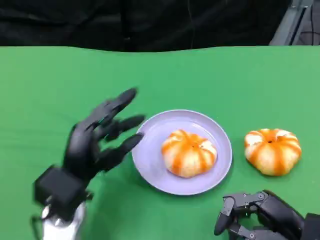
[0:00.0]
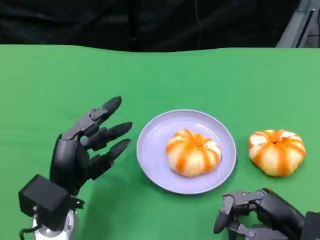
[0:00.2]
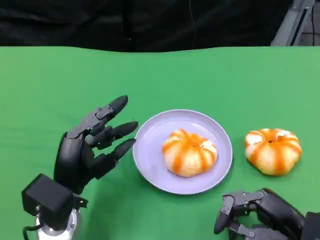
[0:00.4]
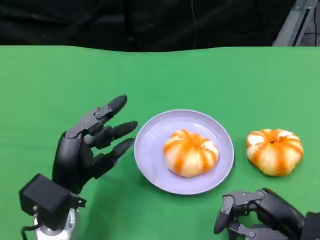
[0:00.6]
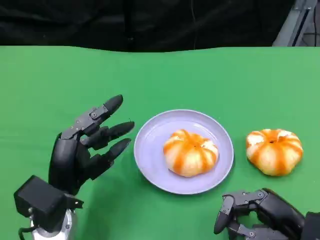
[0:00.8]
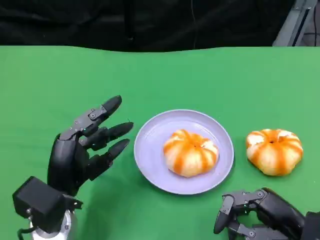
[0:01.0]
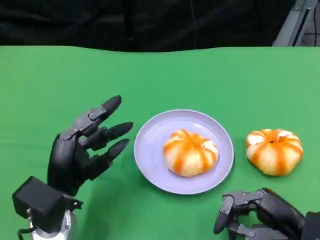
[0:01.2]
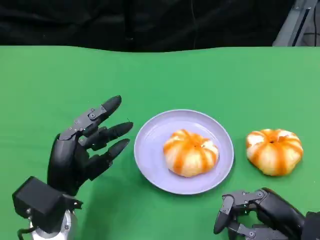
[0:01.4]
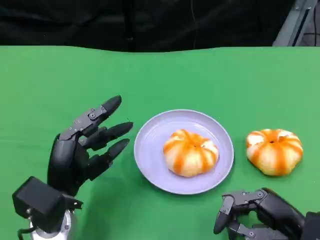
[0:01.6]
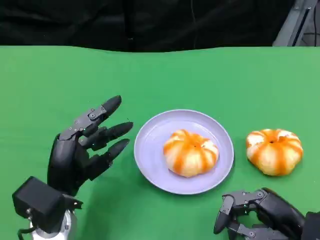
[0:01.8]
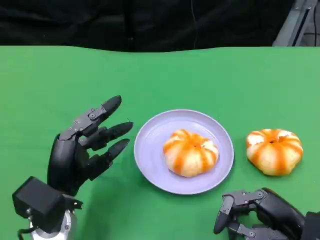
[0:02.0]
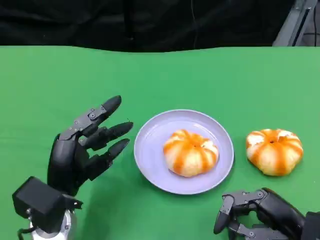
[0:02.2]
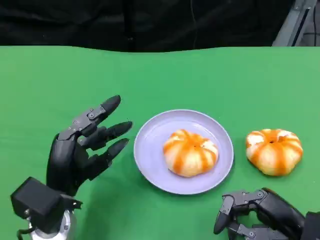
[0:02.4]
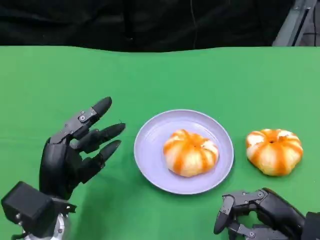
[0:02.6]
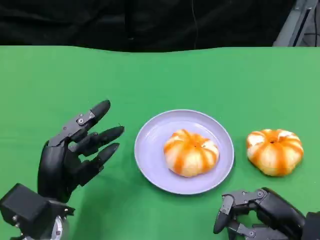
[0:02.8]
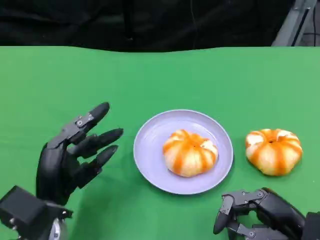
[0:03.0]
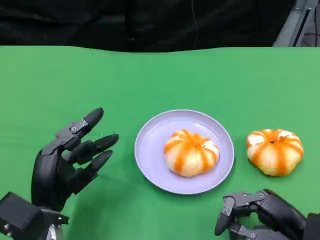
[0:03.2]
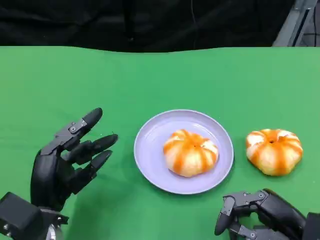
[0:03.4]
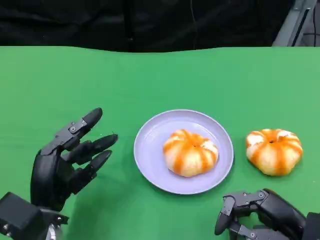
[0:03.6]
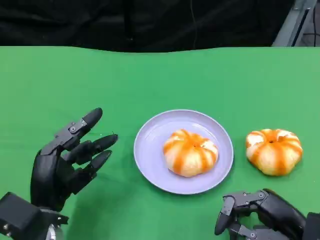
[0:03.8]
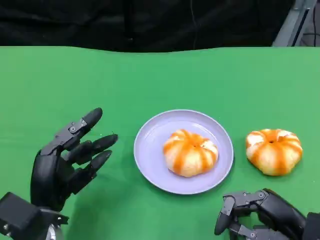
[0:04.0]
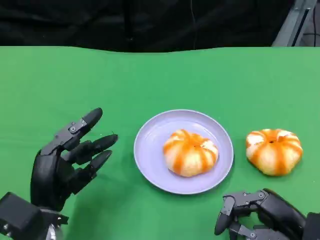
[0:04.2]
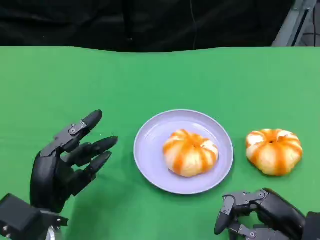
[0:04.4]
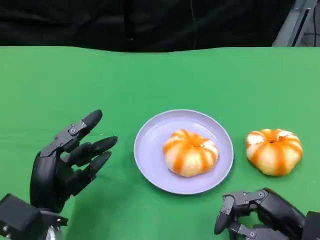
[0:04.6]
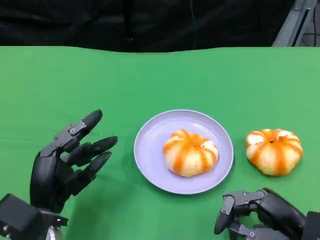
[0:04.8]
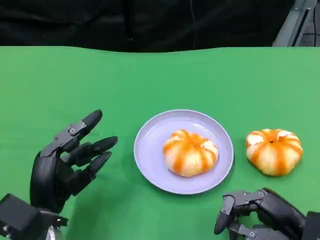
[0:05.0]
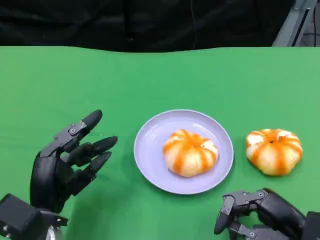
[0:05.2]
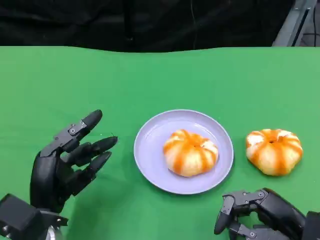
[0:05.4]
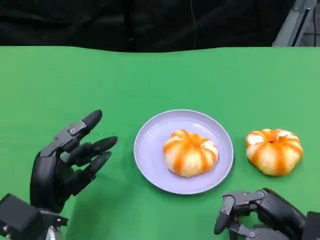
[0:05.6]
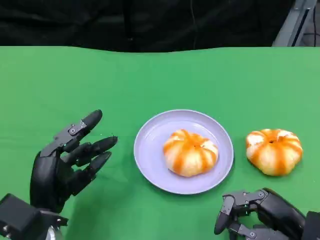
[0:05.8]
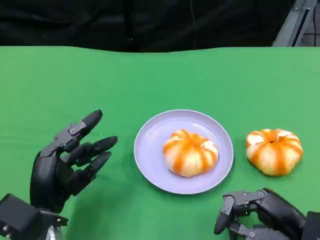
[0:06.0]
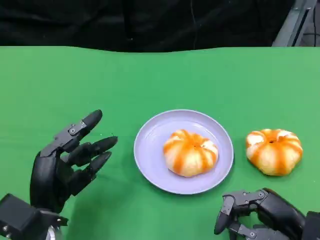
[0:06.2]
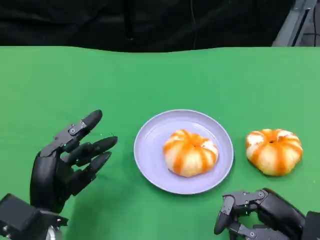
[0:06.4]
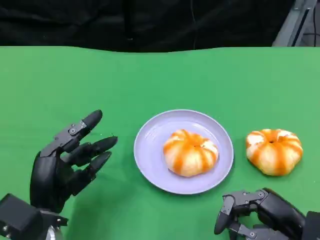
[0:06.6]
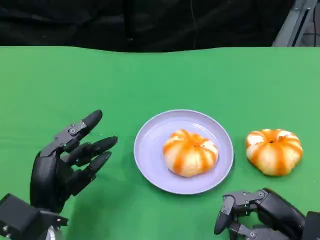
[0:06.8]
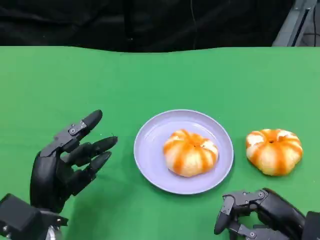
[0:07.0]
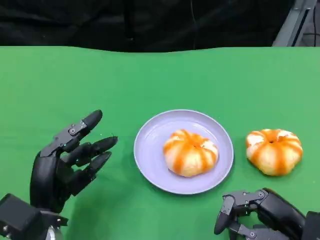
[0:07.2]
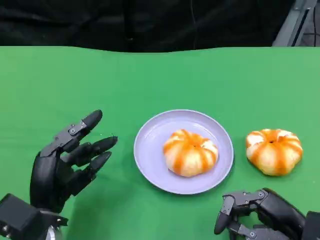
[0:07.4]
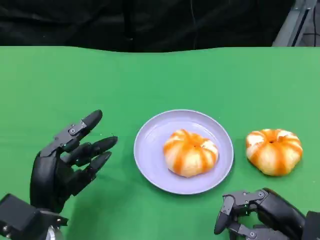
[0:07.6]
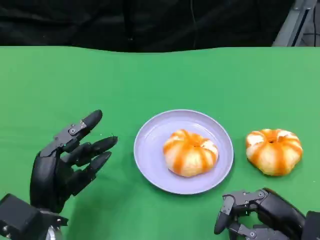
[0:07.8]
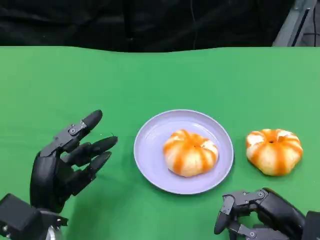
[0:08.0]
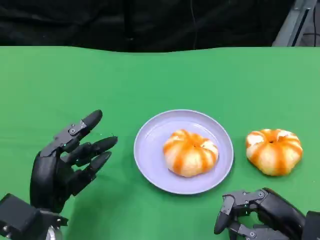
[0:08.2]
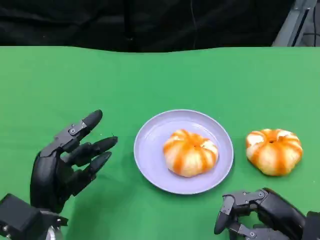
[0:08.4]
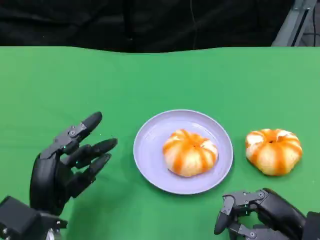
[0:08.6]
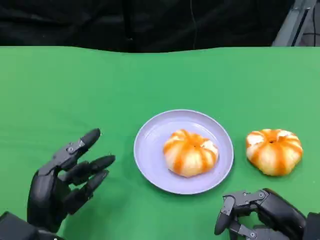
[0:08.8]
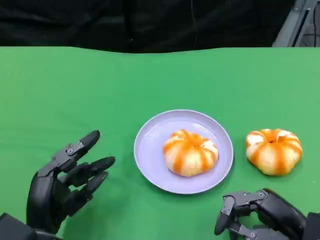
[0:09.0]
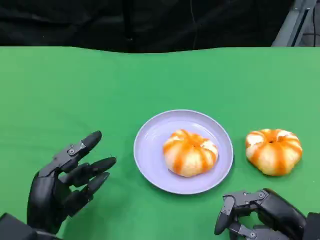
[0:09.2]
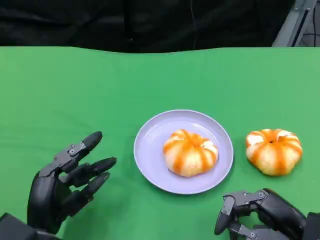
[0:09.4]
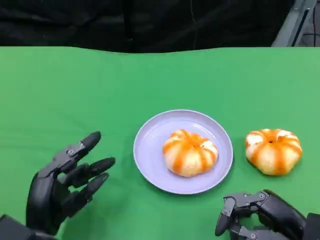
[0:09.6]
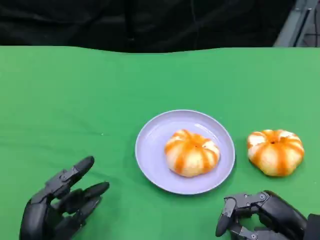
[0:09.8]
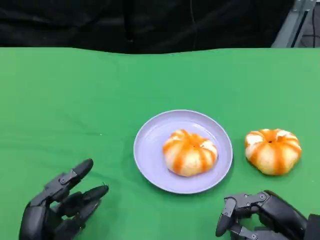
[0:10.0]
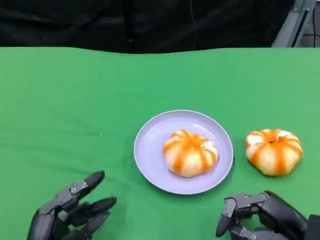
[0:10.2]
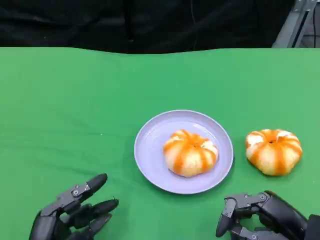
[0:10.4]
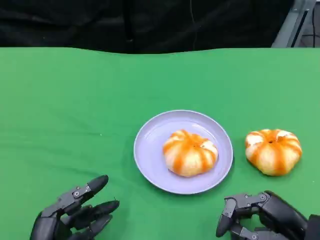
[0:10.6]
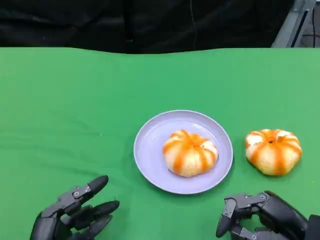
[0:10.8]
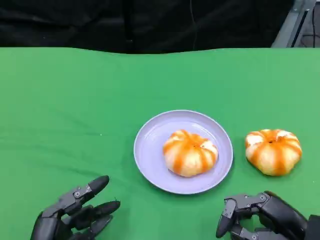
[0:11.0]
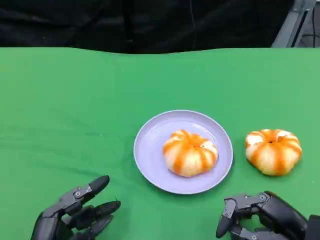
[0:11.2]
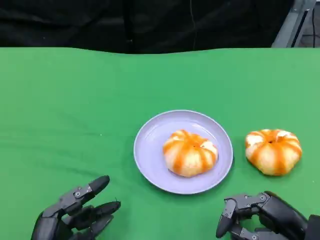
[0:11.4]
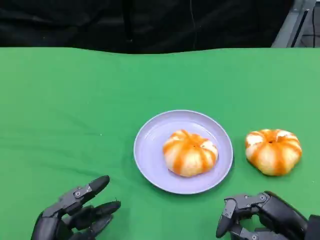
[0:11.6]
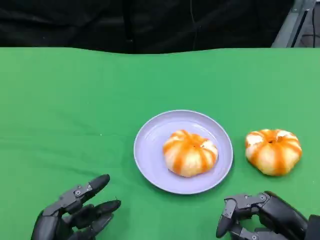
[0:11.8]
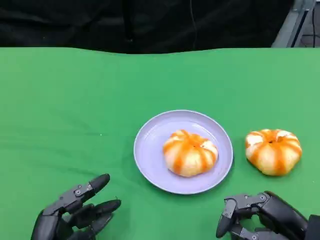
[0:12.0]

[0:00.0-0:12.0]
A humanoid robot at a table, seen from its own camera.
Task of the whole recording: Grasp the bread from the table and place it into the plate.
0:00.0 to 0:01.6: The two hands keep their place.
0:01.6 to 0:03.0: The hands make only small movements.
0:03.0 to 0:07.6: Neither hand changes place.
0:07.6 to 0:09.0: The hands stay close to where they were, moving slightly.
0:09.0 to 0:10.4: The left hand shifts by roughly 5 cm.
0:10.4 to 0:12.0: The two hands keep their place.

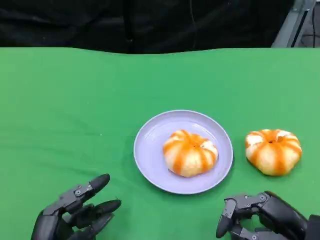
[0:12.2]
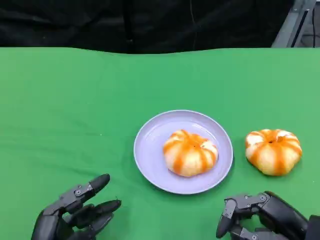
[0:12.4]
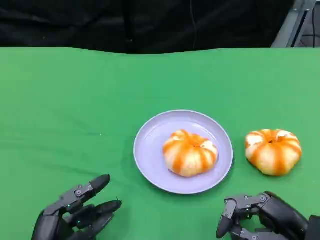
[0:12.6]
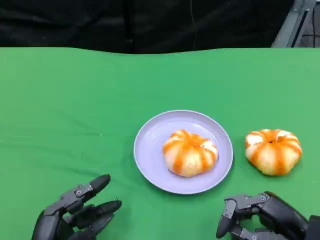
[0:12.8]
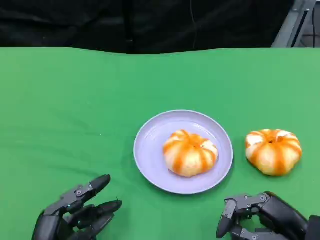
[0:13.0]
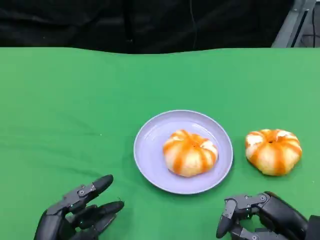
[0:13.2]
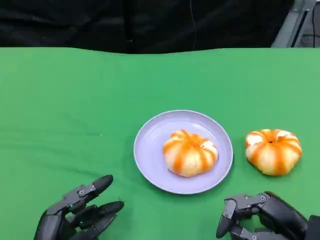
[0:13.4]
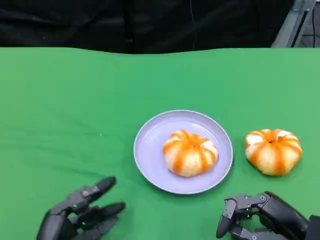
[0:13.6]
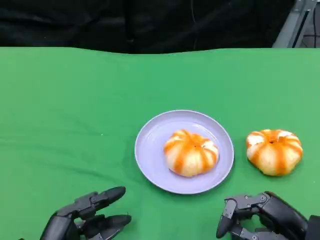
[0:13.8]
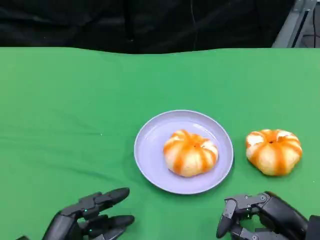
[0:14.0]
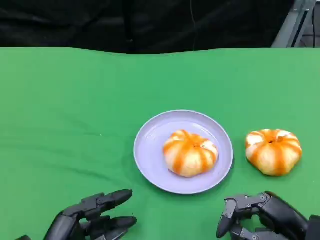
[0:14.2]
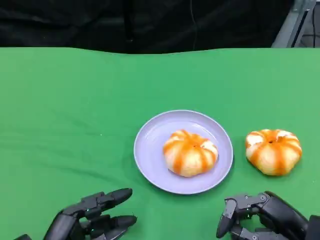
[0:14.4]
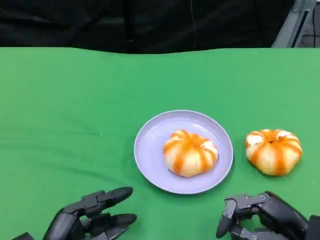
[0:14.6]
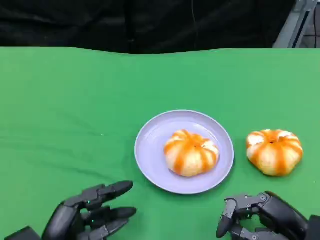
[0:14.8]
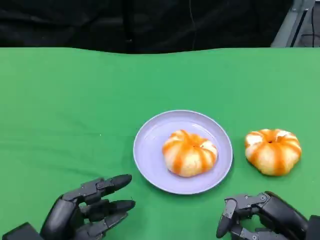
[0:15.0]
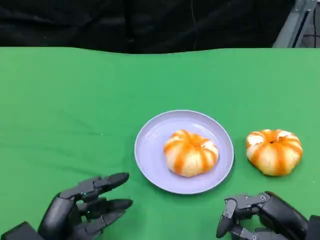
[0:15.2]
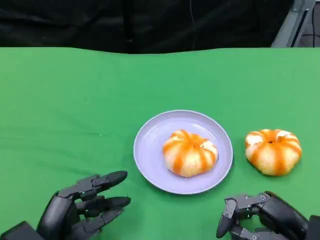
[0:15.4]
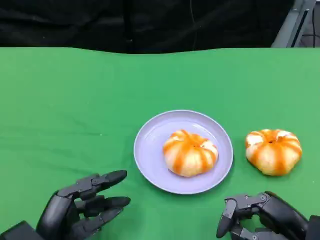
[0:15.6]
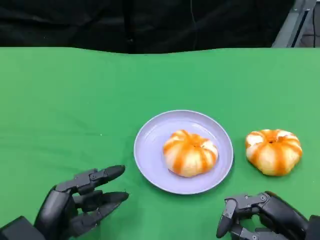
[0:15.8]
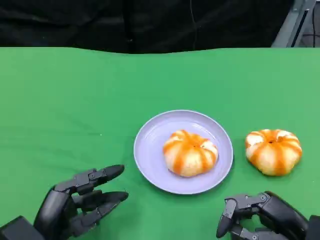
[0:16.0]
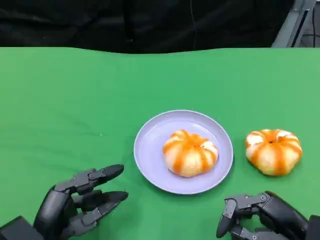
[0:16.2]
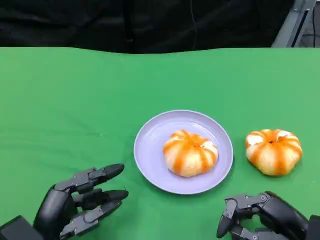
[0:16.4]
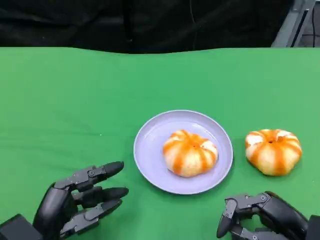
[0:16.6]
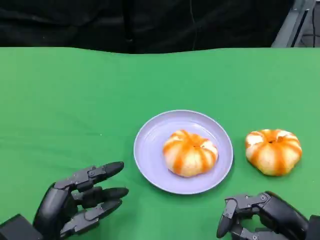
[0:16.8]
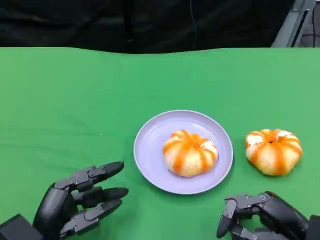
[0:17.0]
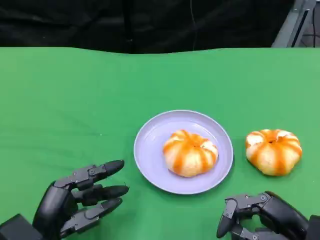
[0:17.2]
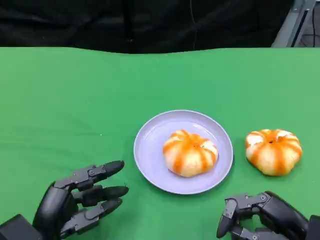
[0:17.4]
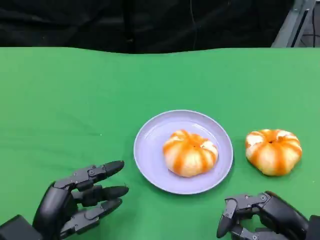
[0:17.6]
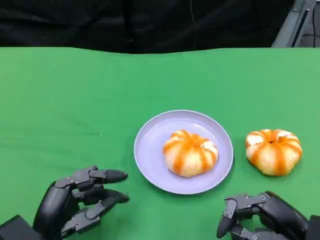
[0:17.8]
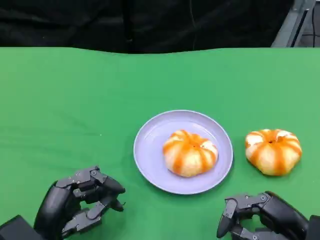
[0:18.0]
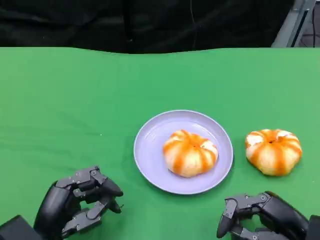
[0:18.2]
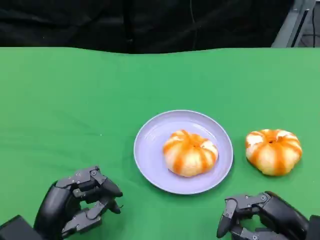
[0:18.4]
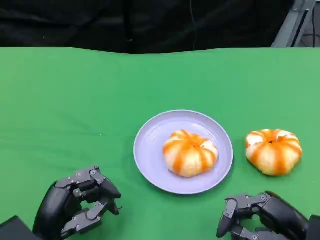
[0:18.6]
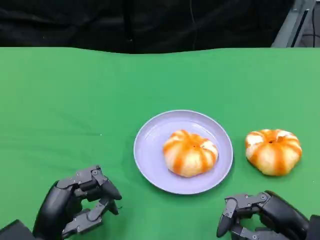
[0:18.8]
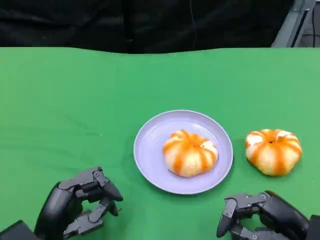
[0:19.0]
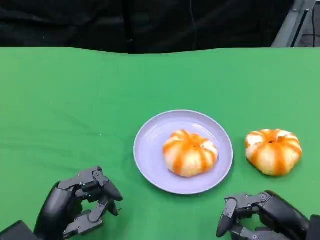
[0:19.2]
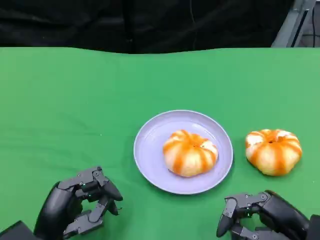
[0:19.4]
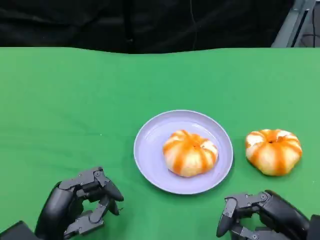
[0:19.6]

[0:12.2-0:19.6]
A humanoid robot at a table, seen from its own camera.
Task of the whole recording: Grasp the bread from the table and place it into the plate.
0:12.2 to 0:15.2: The hands make only small movements.
0:15.2 to 0:18.2: Neither hand changes place.
0:18.2 to 0:19.6: Both hands stay put.

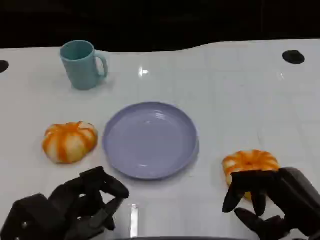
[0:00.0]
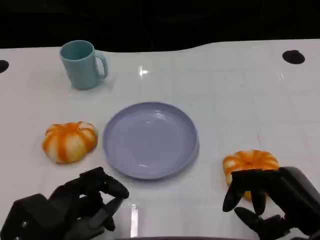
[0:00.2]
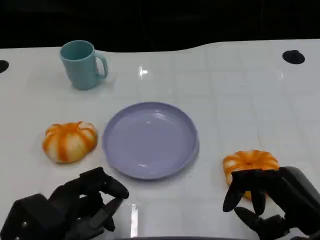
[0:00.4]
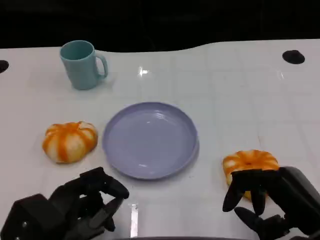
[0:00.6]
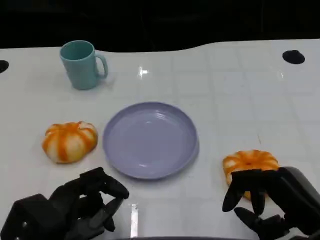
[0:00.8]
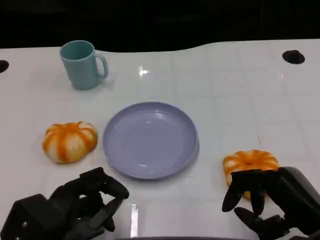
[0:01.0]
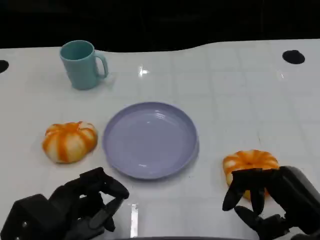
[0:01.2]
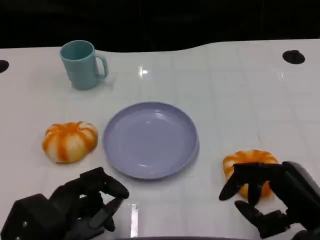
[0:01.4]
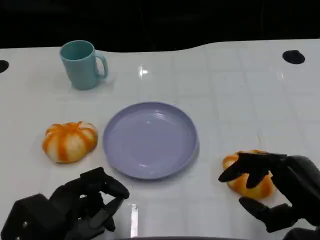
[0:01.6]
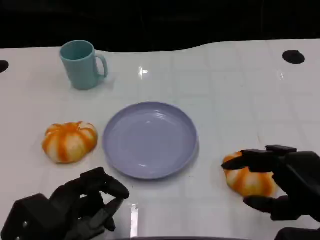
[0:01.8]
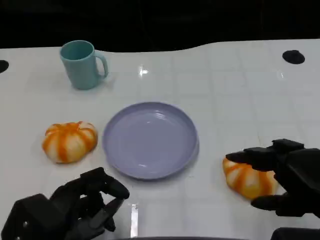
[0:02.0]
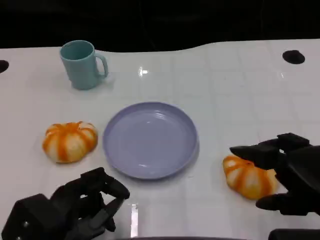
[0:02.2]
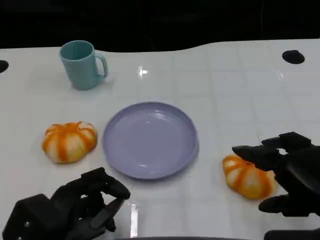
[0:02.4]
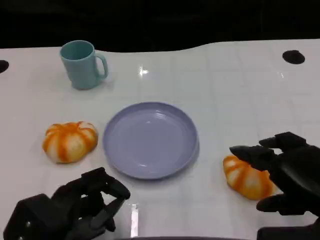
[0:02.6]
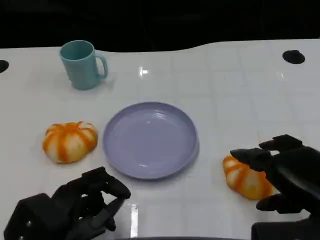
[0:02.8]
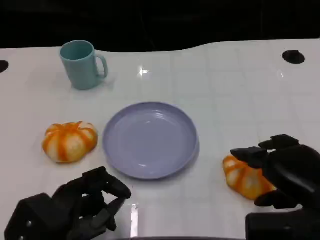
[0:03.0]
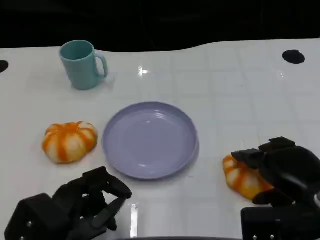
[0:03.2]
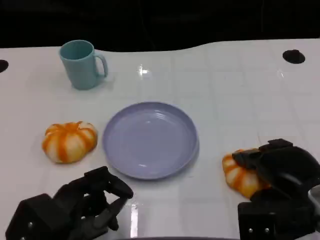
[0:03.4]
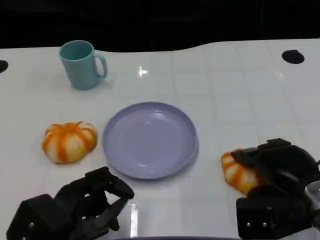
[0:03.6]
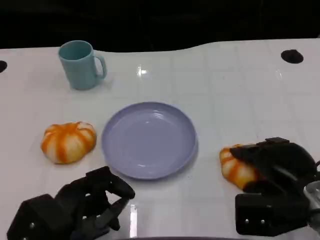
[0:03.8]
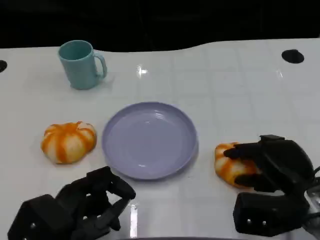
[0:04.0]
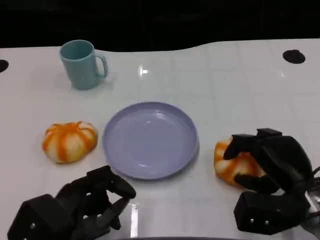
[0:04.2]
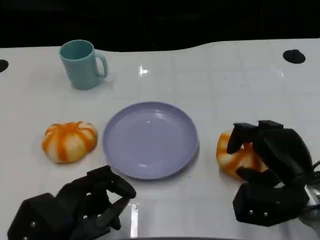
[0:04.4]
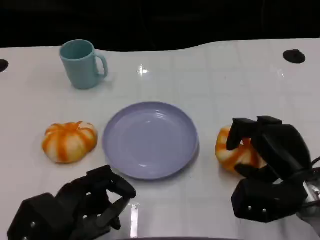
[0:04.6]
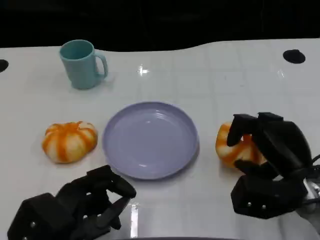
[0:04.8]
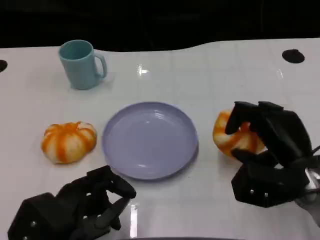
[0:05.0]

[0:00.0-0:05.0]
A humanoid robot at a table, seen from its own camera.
Task of the whole recording: Grasp the bread from the table and place it into the plate.
0:00.0 to 0:01.6: The hands make only small movements.
0:01.6 to 0:03.4: The right hand is displaced forward by roughly 5 cm.
